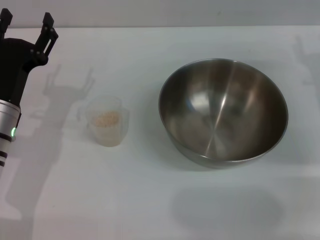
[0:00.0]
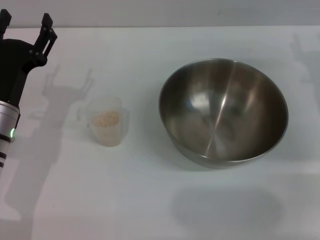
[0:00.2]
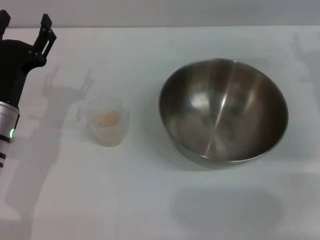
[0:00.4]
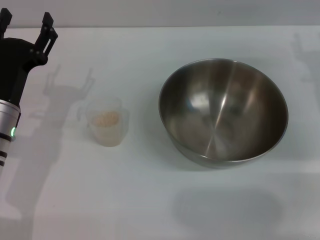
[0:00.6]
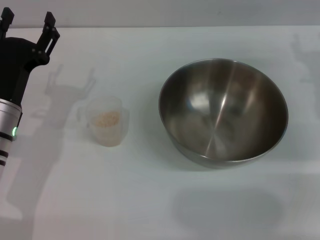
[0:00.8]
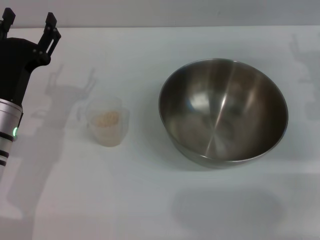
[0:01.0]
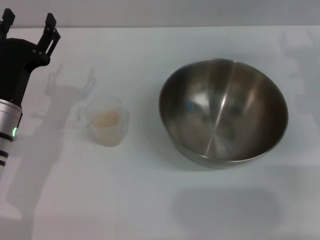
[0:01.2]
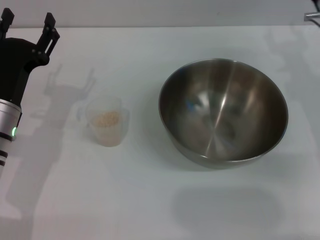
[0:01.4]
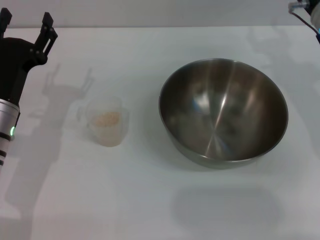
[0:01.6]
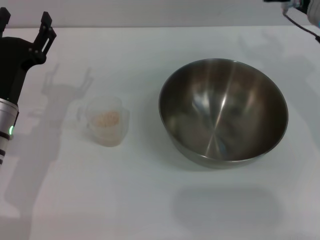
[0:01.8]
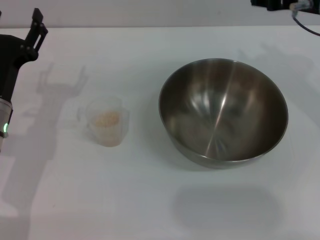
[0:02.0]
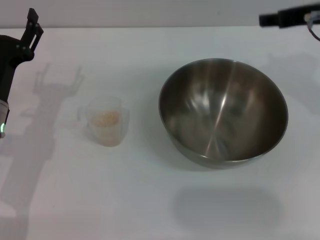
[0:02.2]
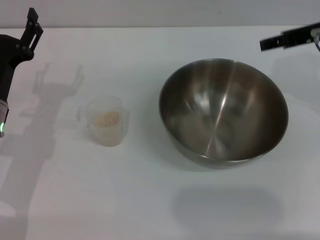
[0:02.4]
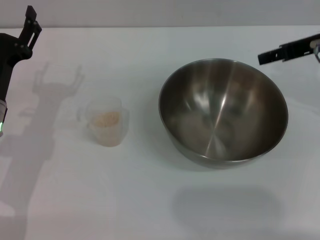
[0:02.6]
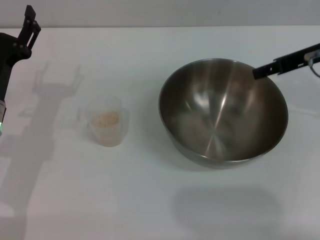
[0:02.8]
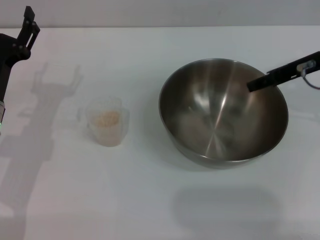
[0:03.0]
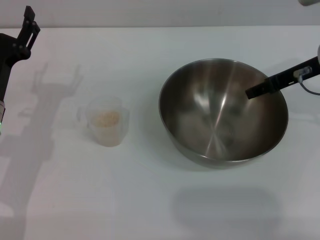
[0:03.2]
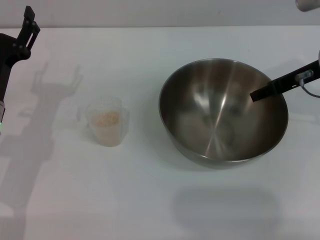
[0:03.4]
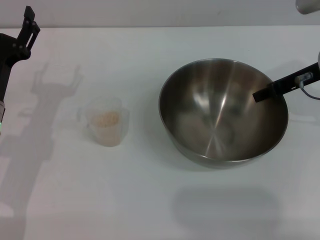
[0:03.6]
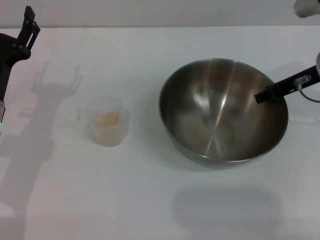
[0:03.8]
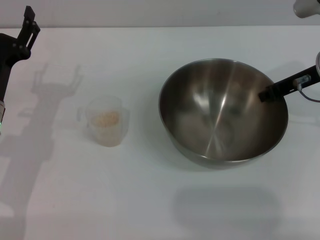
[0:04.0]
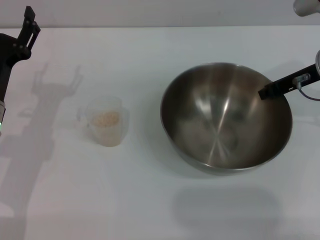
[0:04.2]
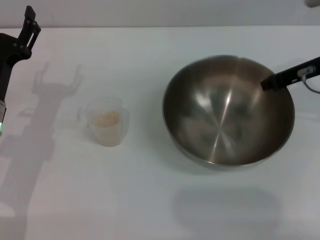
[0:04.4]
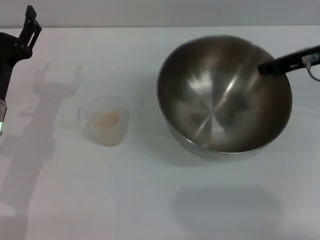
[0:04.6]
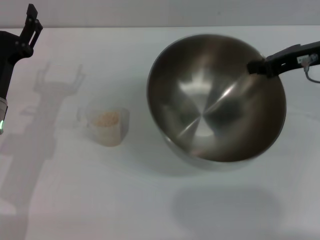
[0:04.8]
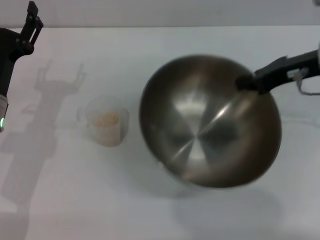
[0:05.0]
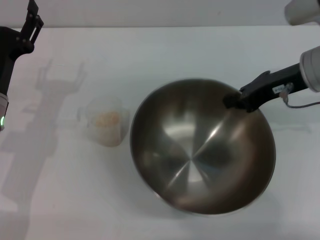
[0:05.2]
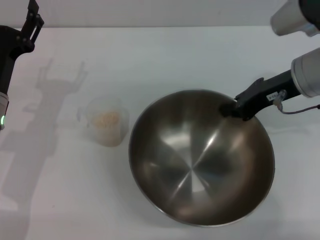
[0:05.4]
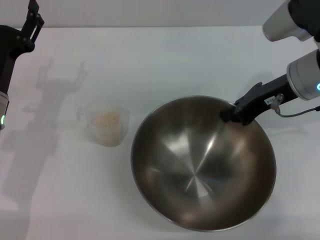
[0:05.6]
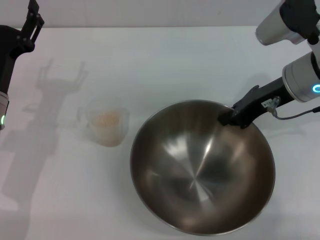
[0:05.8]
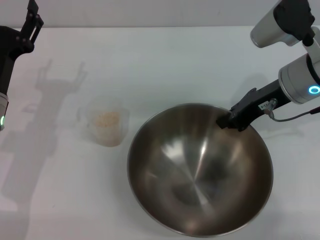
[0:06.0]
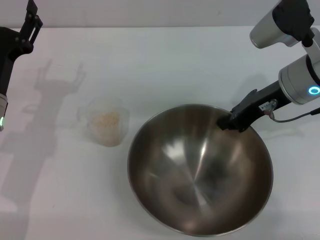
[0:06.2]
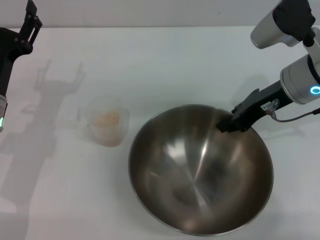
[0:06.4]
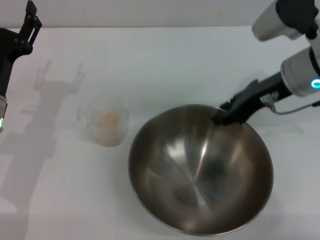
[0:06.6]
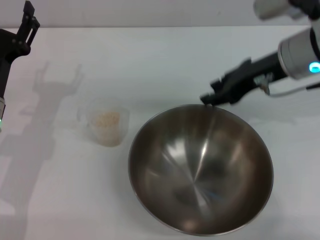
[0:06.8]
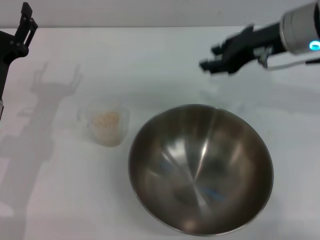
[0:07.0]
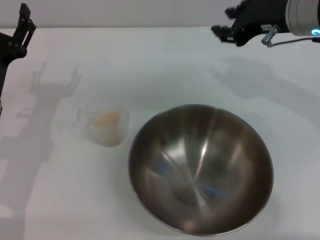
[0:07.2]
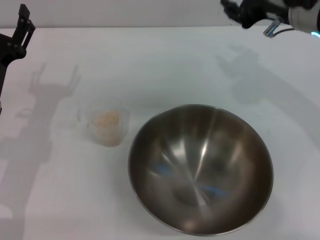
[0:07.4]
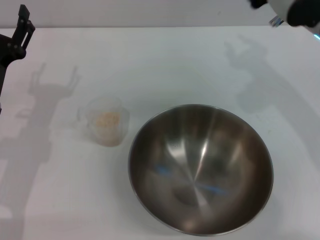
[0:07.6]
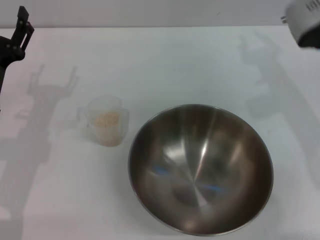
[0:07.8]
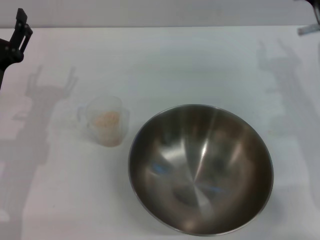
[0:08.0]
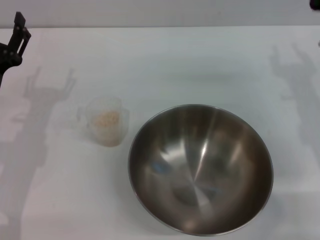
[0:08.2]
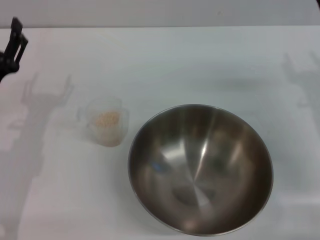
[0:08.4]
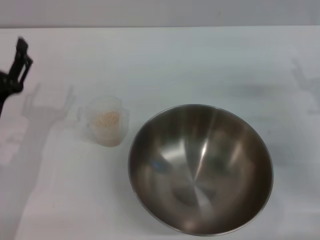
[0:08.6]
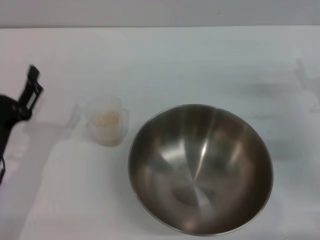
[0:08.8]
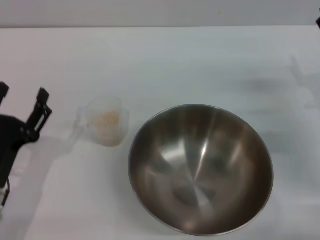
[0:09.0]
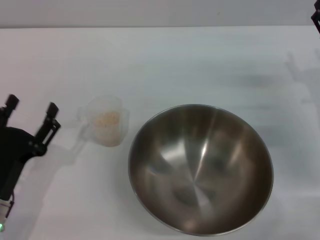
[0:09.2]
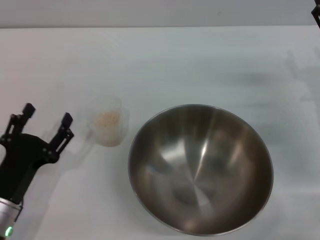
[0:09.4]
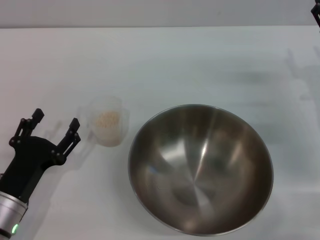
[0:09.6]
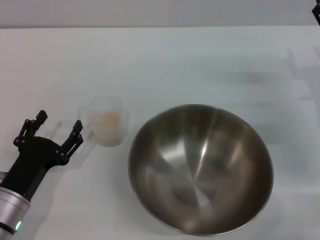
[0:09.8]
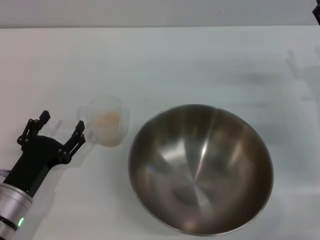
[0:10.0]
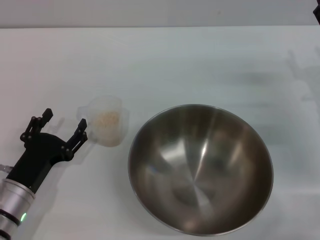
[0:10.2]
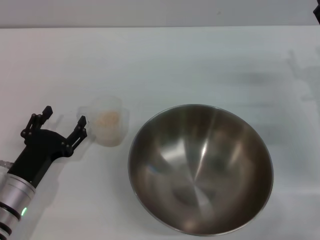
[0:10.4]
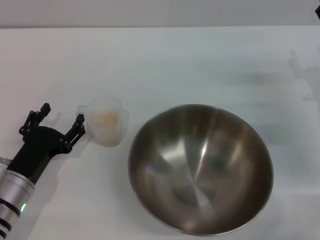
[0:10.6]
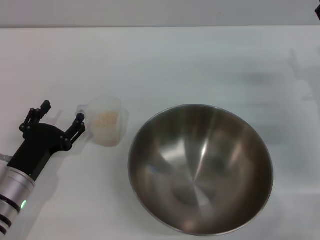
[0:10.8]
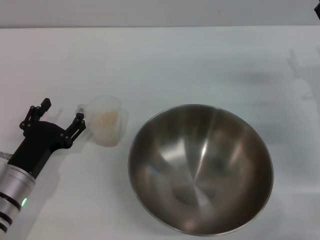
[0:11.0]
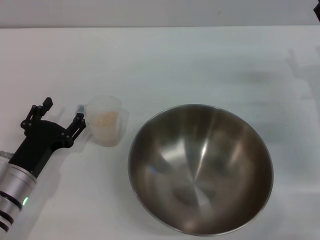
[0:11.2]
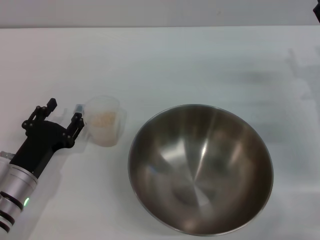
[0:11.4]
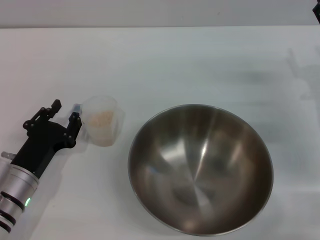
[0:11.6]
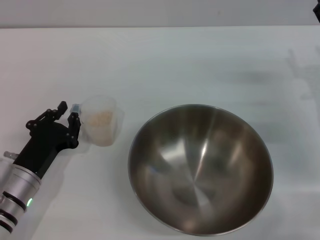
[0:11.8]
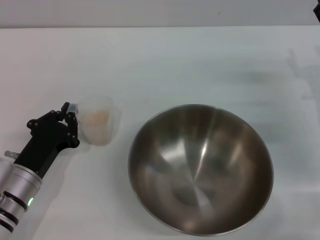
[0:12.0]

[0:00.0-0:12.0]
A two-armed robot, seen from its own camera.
Task of the whole recording: Place the bowl in the middle of the table with one hand and pour the rice from the grain cup into it with the other hand.
Step, 0:00.0 to 0:04.6: Pick up the bowl with the right gripper.
Step, 0:04.8 to 0:06.8: Place the bowl in the center of view with the right gripper.
0:00.0 to 0:01.6: The right gripper shifts some 10 cm upward and to the left.
0:03.0 to 0:04.4: The right gripper closes up.
0:04.4 to 0:06.0: The right gripper heads to the left, covering approximately 5 cm.
0:06.0 to 0:07.6: The right gripper opens.
0:07.6 to 0:09.0: The left gripper shifts about 10 cm backward, while the right gripper is displaced downward and to the right by approximately 20 cm, and opens its fingers.
0:09.0 to 0:10.4: The grippers make only small movements.
0:10.4 to 0:12.0: The left gripper closes.

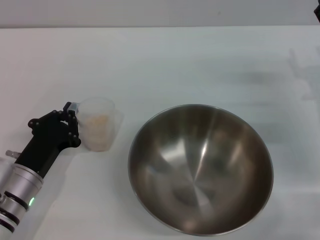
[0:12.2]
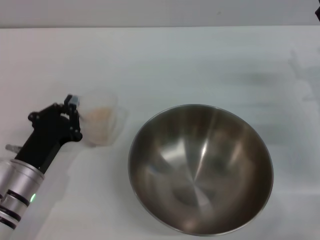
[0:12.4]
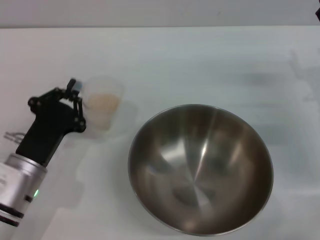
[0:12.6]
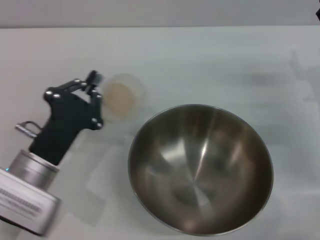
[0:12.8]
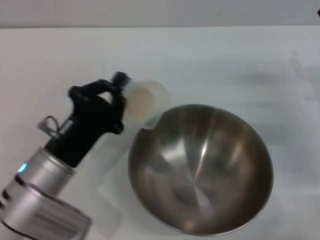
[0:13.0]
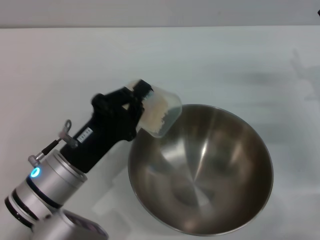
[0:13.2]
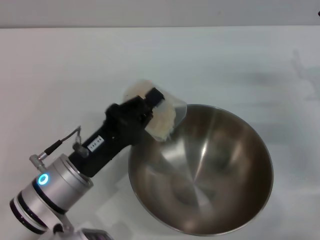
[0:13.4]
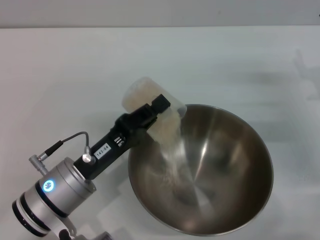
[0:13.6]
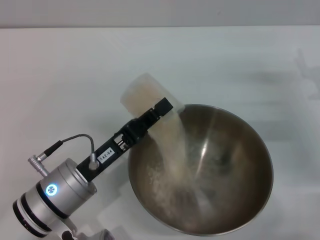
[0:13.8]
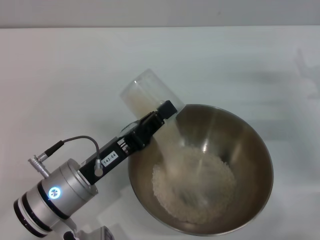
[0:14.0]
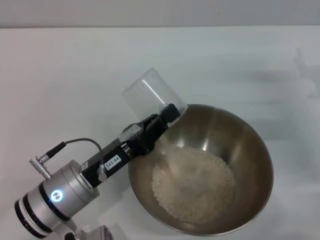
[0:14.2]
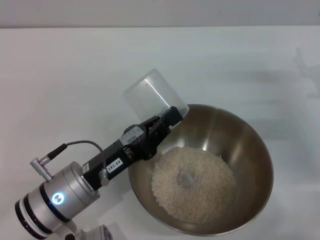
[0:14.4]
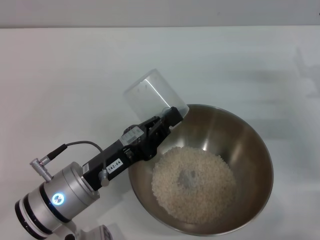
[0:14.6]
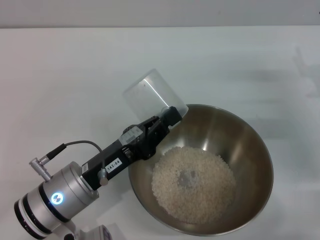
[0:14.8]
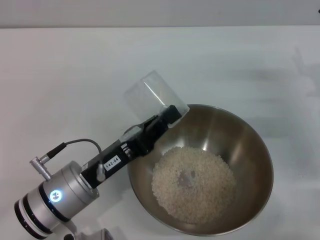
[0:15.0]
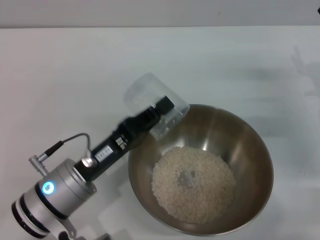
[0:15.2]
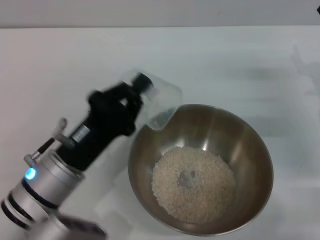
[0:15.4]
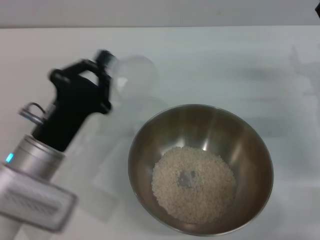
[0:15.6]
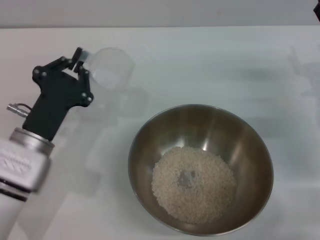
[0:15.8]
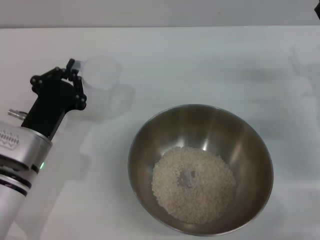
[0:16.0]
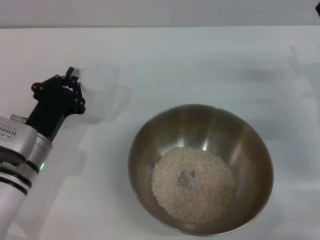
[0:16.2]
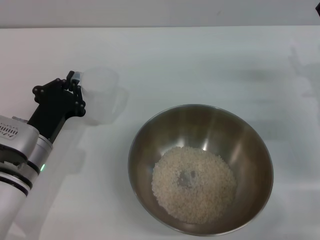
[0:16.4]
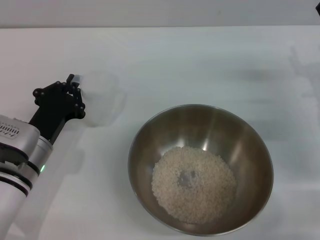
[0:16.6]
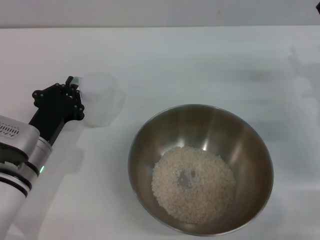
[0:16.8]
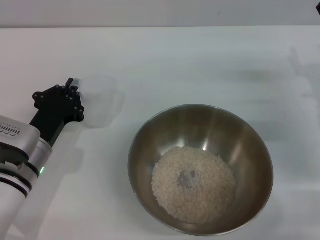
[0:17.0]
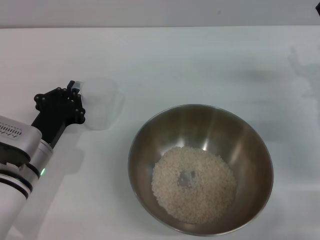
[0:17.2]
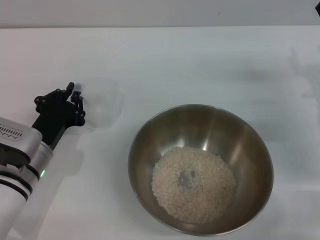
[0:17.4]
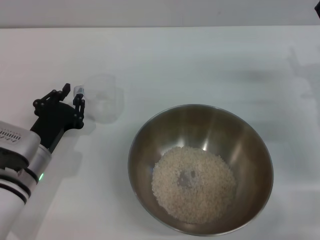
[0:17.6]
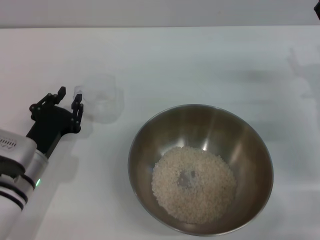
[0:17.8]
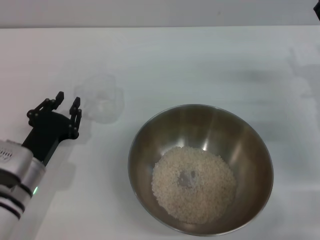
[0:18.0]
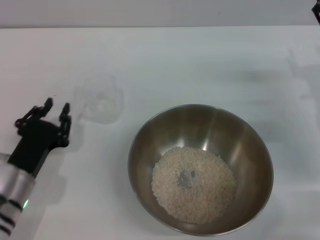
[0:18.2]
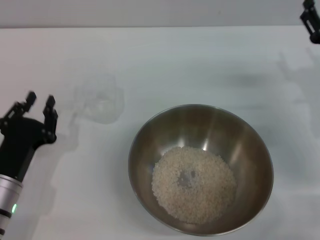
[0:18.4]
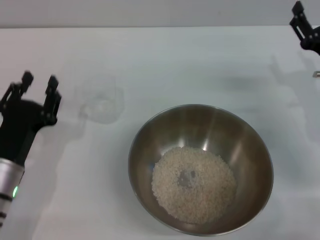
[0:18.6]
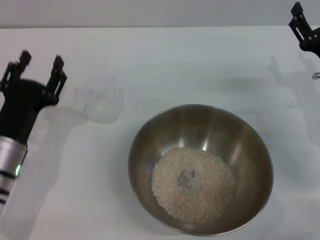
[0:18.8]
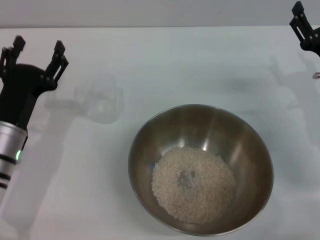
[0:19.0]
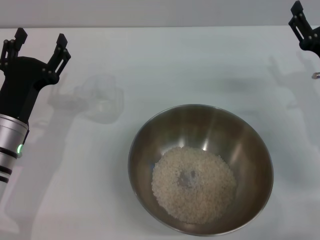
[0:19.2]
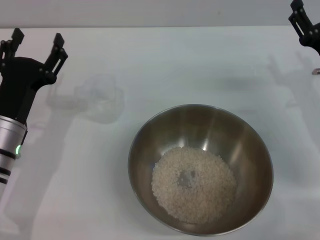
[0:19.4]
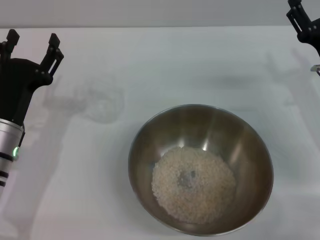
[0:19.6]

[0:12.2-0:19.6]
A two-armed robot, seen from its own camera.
Task of the whole recording: Place the bowl in the middle of the table with one hand and pour the rice from the grain cup into it with the other hand.
Step, 0:12.8 to 0:15.0: Pour the rice from the cup into the bowl with the left gripper.
Step, 0:15.2 to 0:18.2: Place the cup on the table with the left gripper.
0:12.2 to 0:13.6: The left gripper shifts about 5 cm to the right.
0:15.2 to 0:16.6: The left gripper goes approximately 10 cm forward and to the left.
0:16.6 to 0:18.2: The grippers move only a little.
0:18.2 to 0:19.6: The left gripper shifts approximately 5 cm upward, and opens up.

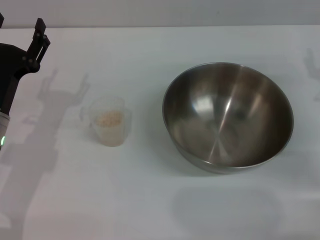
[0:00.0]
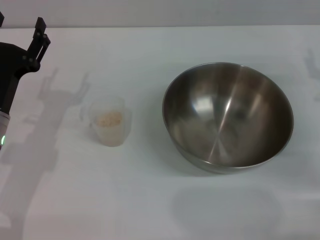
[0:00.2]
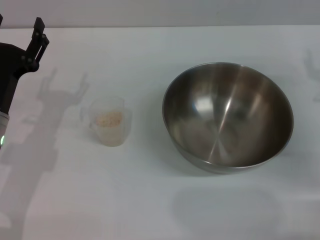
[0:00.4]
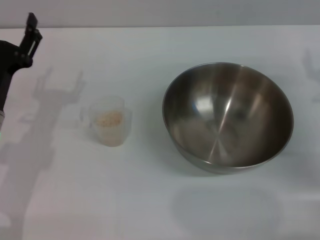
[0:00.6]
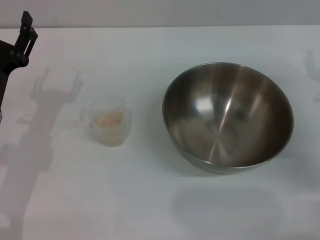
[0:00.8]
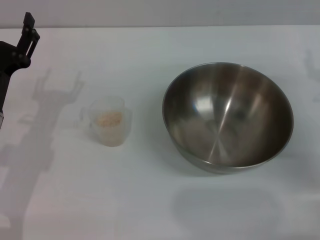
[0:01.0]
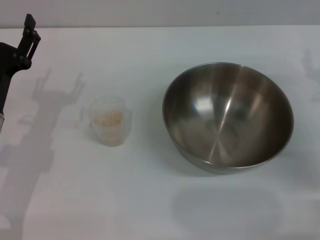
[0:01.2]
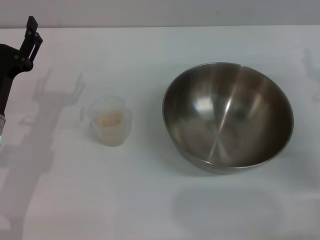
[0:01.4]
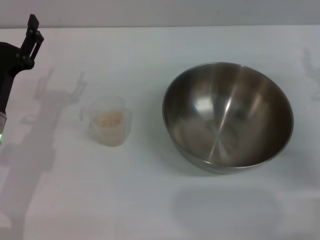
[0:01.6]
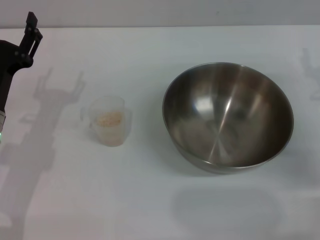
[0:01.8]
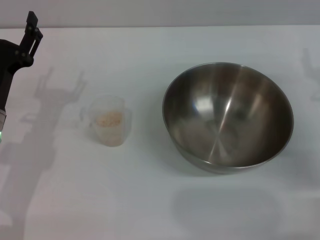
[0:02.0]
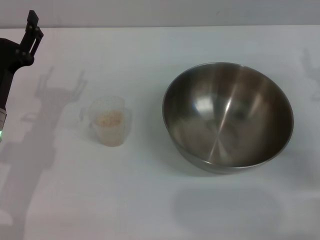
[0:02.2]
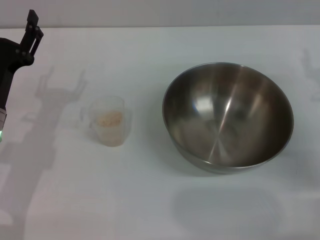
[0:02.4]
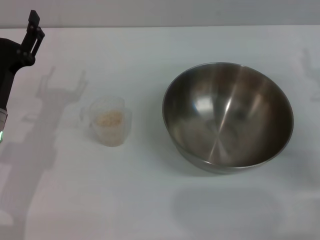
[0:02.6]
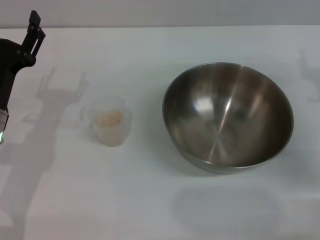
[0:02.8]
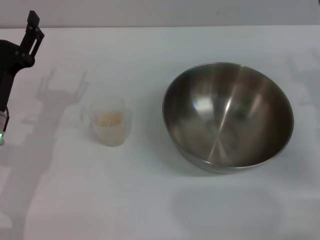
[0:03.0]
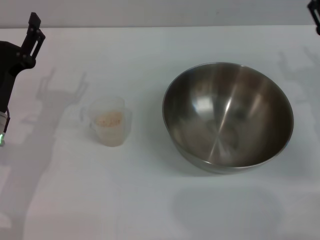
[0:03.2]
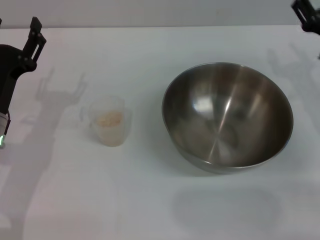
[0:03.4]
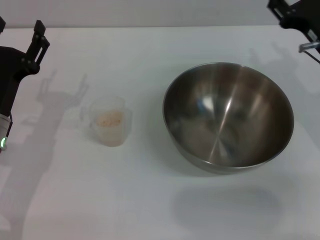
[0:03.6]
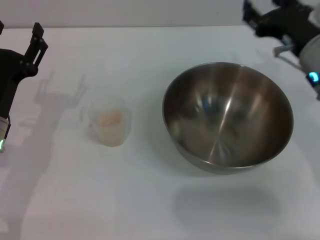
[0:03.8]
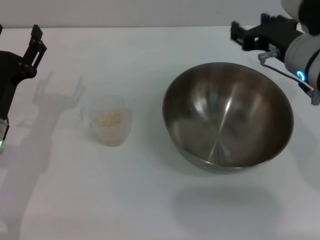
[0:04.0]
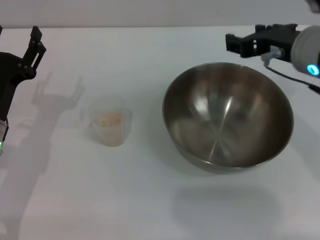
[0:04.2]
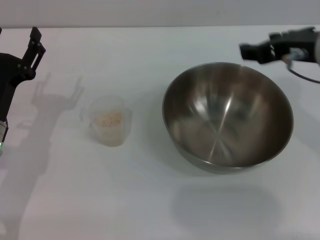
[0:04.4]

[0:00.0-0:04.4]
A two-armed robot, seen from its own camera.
Task of the whole recording: Place the bowl in the middle of the table with one hand and pour the rice from the grain cup into it with the other hand.
0:00.0 to 0:01.4: Both grippers stay put.
0:01.4 to 0:03.0: The grippers stay close to where they were, moving slightly.
0:03.0 to 0:04.4: The right gripper goes about 20 cm upward and to the left.
